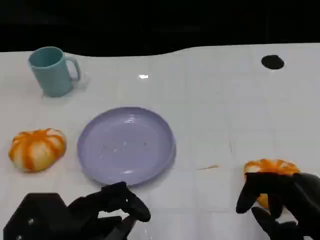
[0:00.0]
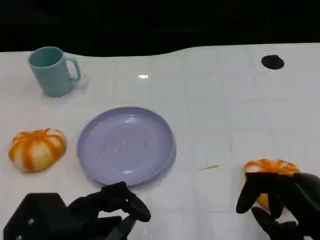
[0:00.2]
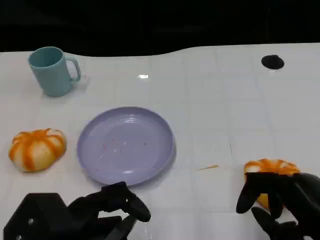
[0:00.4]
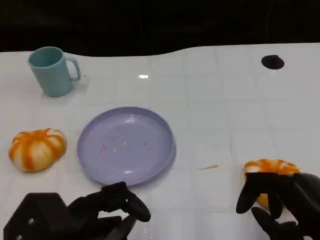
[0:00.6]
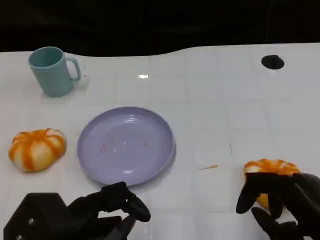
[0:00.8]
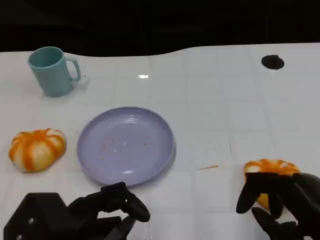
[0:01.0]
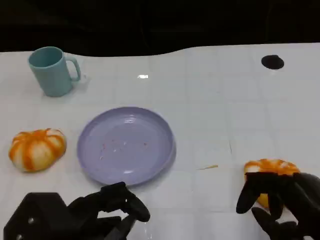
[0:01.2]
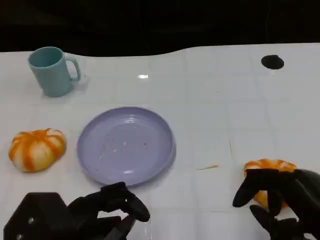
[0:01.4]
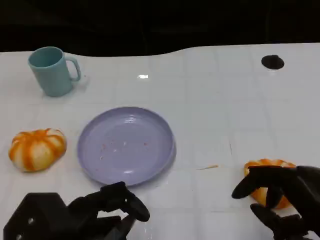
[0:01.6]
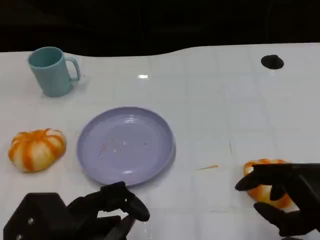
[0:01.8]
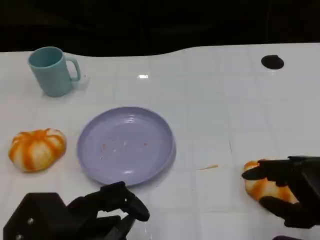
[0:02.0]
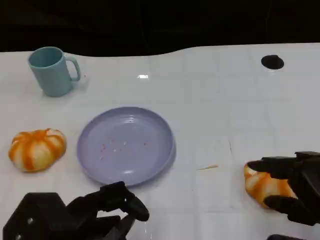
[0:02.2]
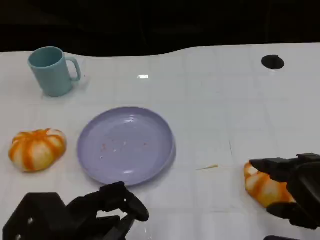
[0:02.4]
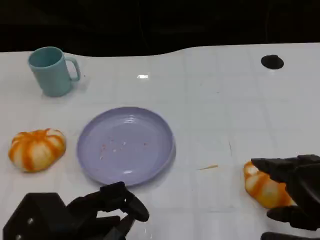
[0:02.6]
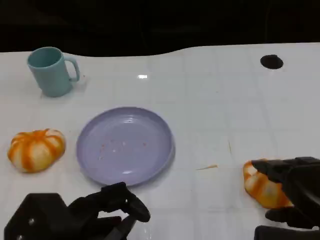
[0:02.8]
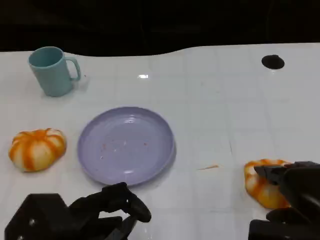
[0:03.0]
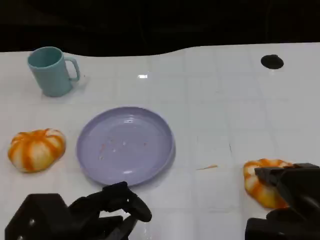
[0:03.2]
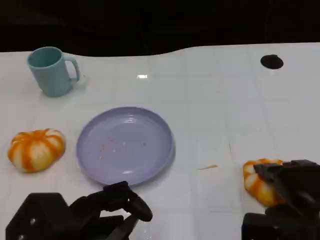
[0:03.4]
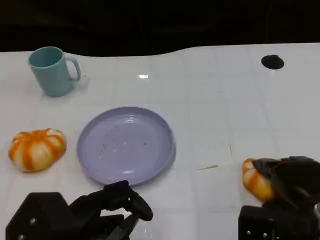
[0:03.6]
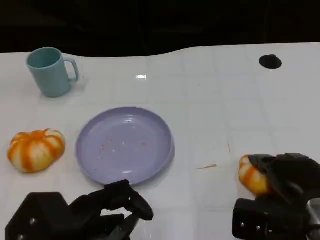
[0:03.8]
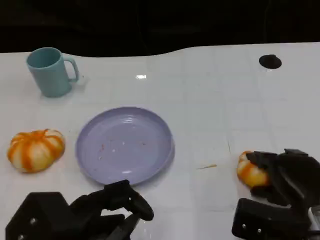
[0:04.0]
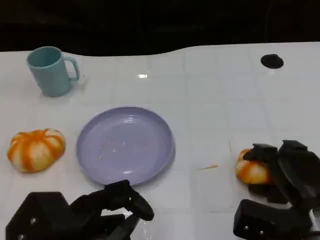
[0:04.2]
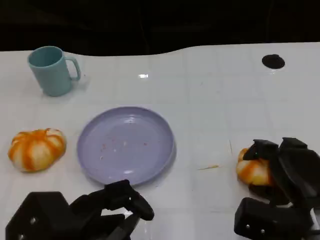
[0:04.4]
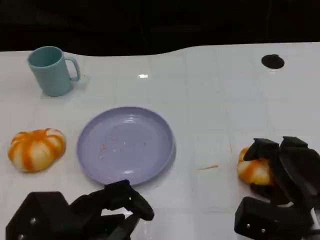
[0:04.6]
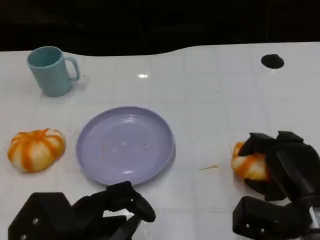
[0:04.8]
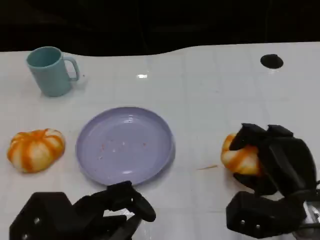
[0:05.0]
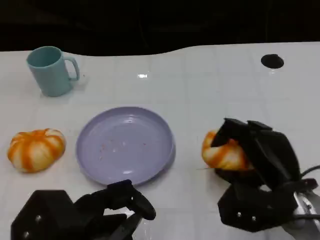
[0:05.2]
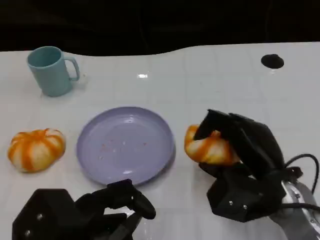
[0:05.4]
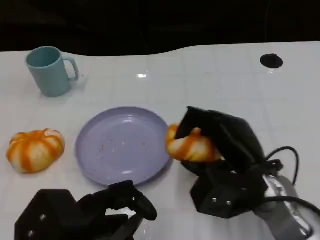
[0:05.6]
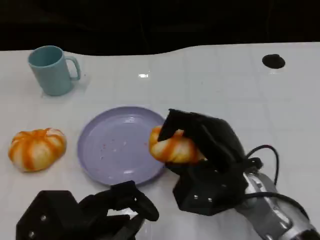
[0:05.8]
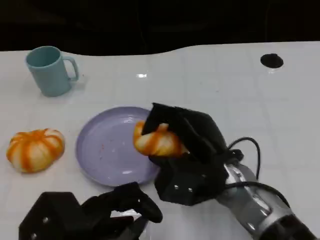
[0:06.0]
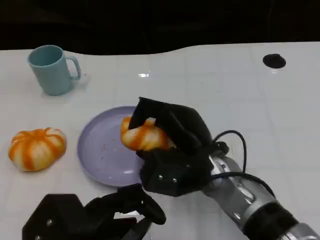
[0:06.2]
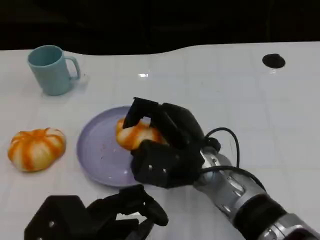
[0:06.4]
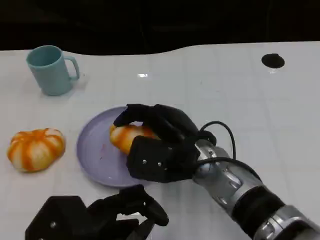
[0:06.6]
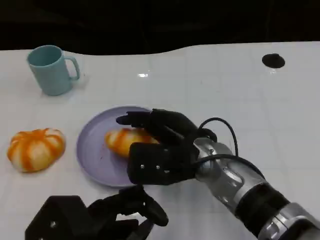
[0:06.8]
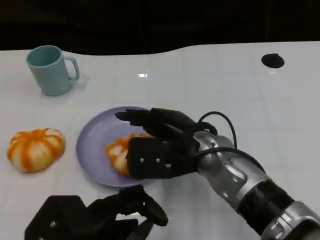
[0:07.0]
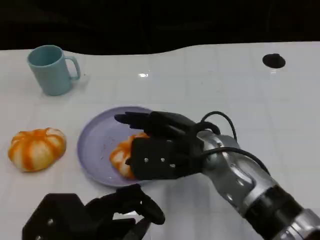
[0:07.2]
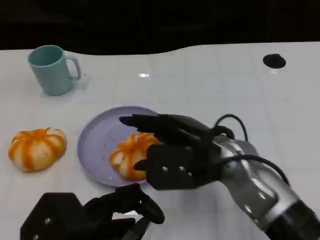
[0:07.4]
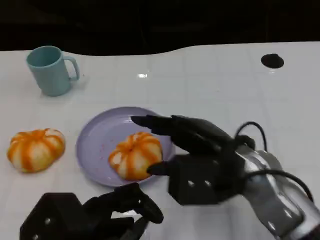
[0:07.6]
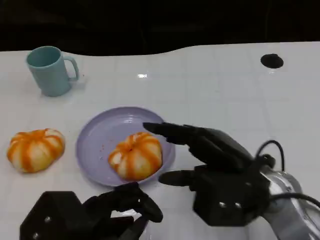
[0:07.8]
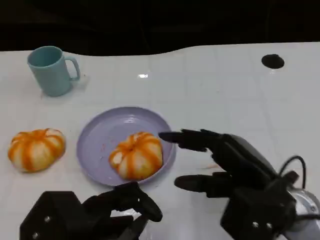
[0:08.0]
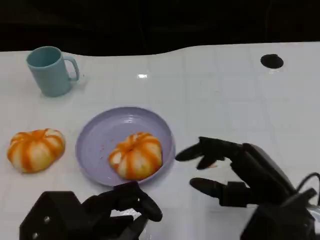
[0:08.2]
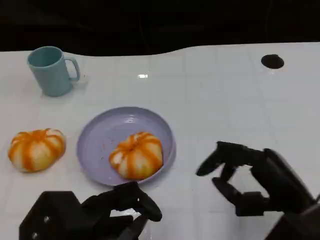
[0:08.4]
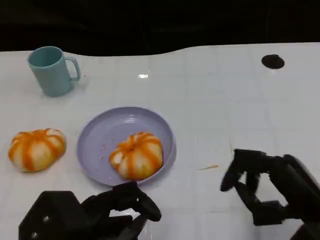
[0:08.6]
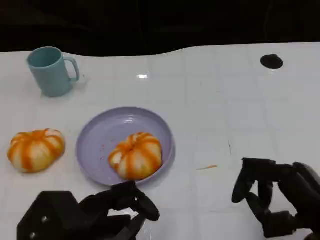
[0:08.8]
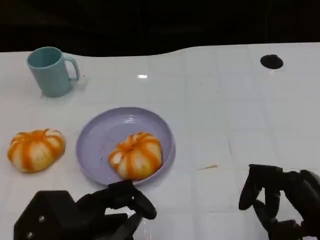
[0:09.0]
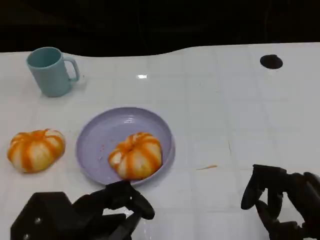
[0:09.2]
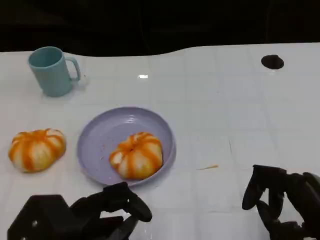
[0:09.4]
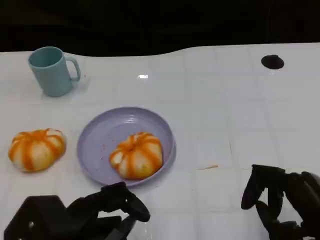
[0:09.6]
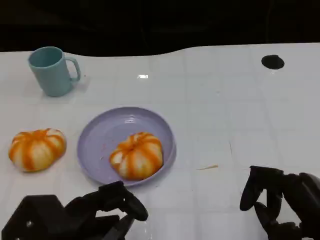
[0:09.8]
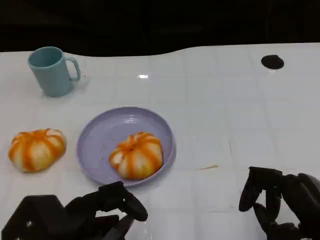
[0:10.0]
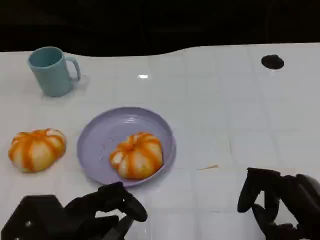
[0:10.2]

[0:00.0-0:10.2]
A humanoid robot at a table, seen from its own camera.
Task of the whole recording: Grasp the bread from the table and place it into the plate.
0.0 to 1.4 s: Both hands stay put.
3.0 to 4.4 s: The right hand goes some 5 cm downward.
4.4 to 5.8 s: The right hand is displaced to the left by approximately 10 cm.
5.8 to 7.2 s: The right hand shifts by about 5 cm.
7.2 to 8.8 s: The right hand shifts roughly 20 cm to the right and backward.
8.8 to 10.2 s: The hands make only small movements.

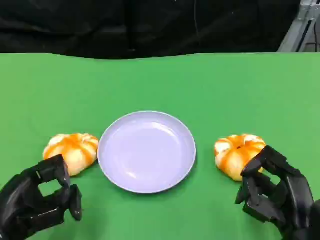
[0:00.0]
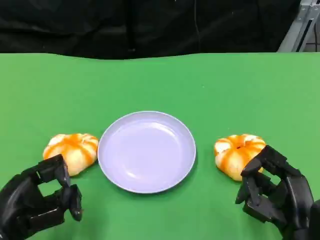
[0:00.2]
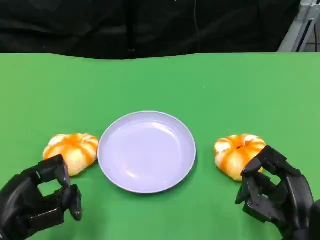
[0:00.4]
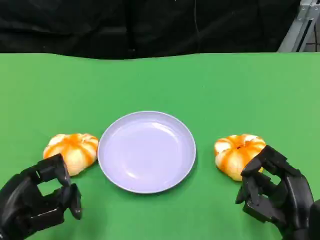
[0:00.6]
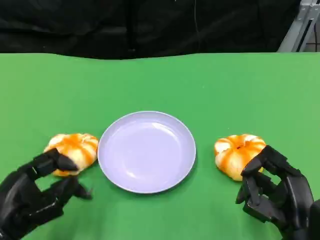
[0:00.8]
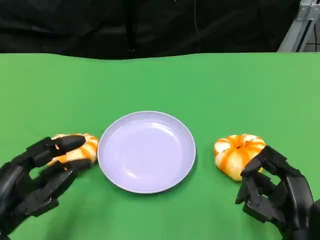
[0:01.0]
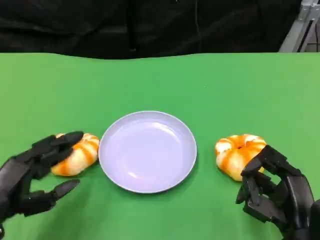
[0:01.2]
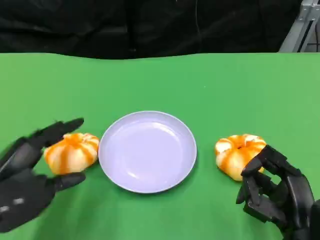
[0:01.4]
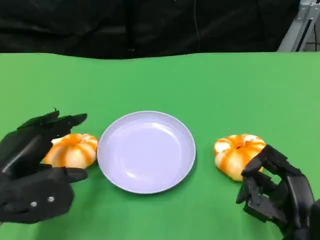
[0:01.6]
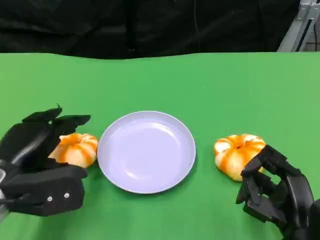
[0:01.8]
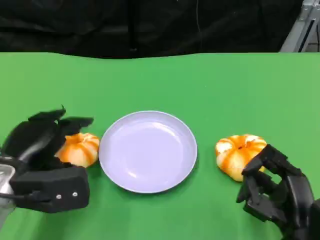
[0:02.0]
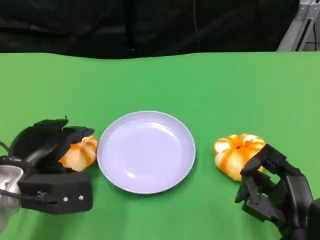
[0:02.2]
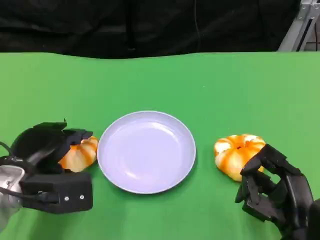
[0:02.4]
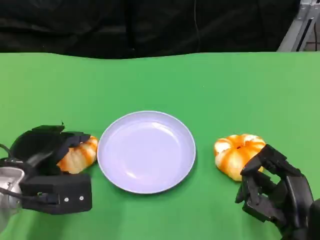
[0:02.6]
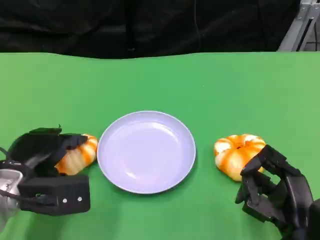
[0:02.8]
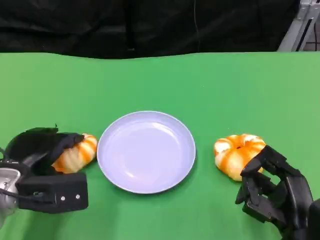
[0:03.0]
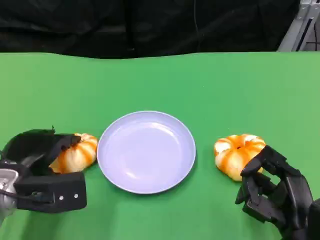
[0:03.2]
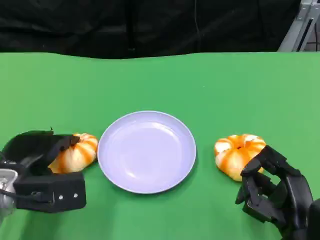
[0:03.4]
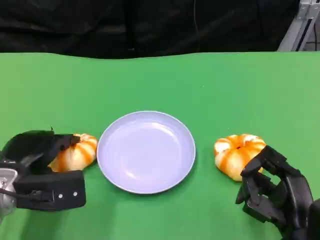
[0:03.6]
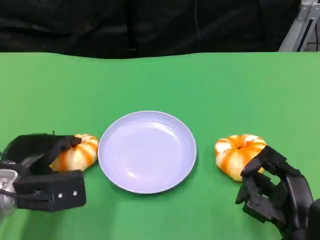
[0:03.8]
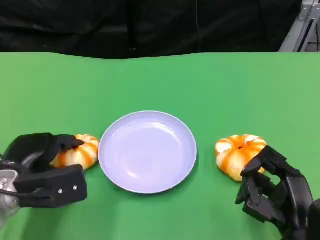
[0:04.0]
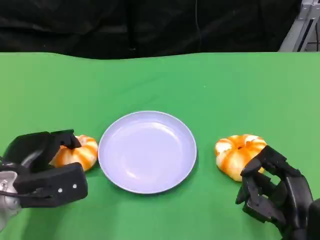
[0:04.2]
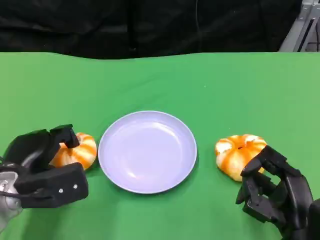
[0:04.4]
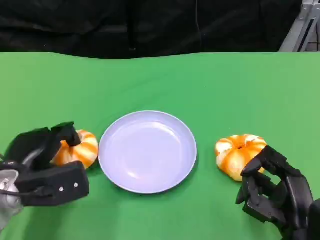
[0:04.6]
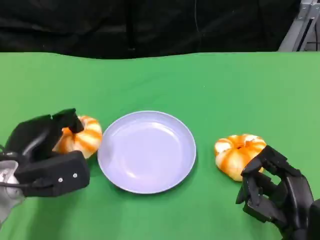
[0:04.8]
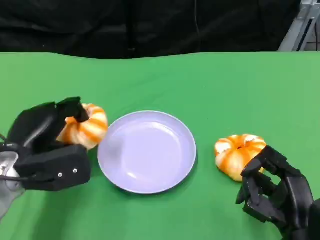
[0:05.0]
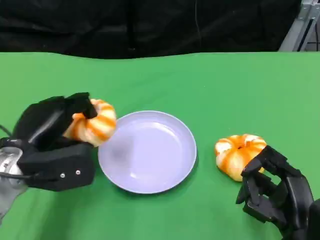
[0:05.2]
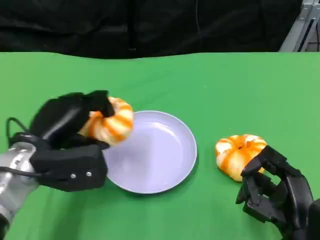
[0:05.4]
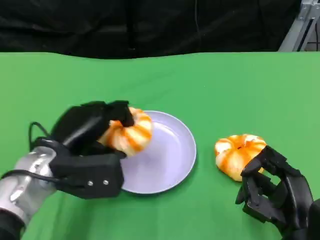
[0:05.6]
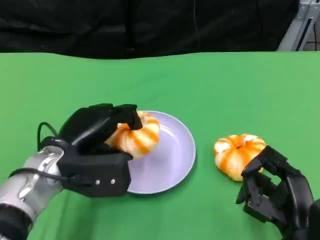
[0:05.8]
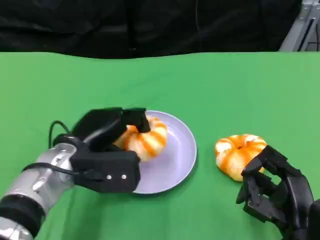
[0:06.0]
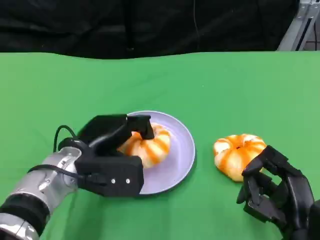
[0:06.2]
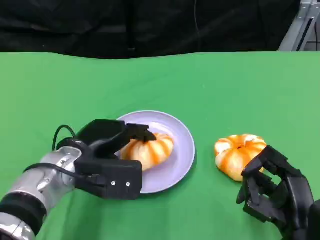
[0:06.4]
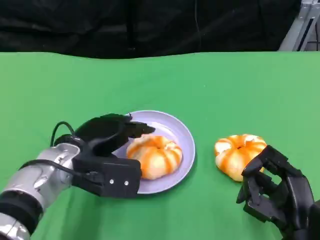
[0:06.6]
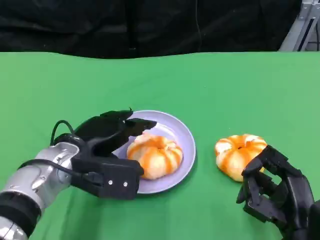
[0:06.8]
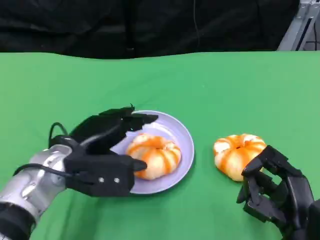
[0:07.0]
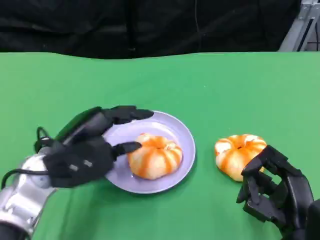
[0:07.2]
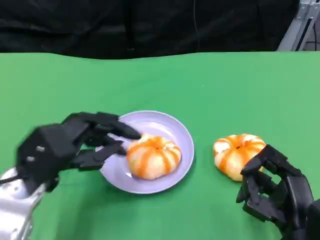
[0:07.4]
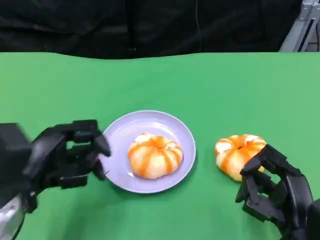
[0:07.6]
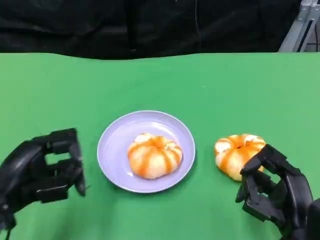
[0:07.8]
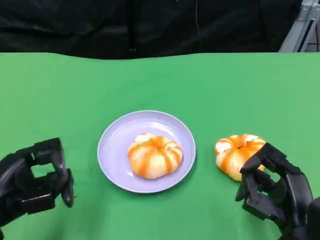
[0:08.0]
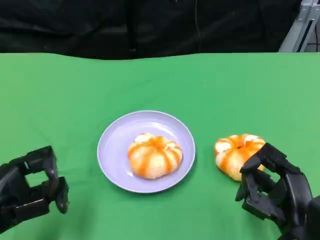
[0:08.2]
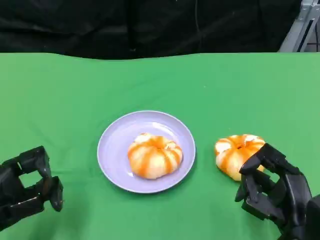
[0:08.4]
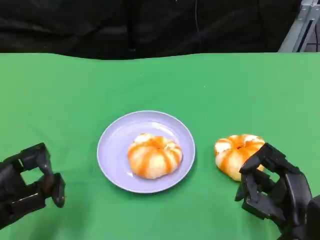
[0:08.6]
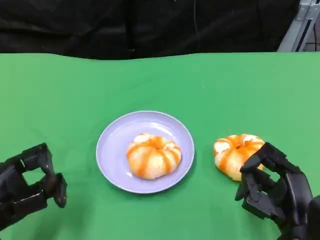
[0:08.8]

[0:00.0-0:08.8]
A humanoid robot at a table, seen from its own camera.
Task of the whole recording: Grasp the bread from the table and place it into the plate.
0.0 to 1.4 s: The left hand shifts by approximately 5 cm.
1.4 to 3.0 s: The left hand goes approximately 10 cm forward and downward.
3.0 to 4.4 s: The hands move only a little.
4.4 to 5.8 s: The left hand moves to the right, some 5 cm.
5.8 to 7.4 s: The left hand moves approximately 5 cm.
7.4 to 8.8 s: The left hand goes approximately 10 cm to the left and backward.

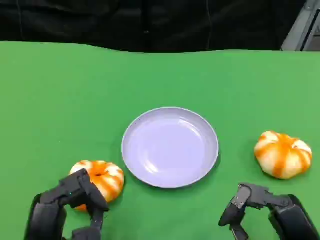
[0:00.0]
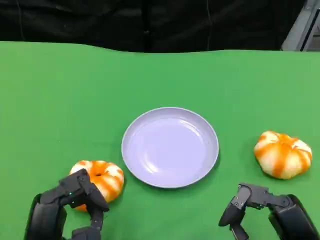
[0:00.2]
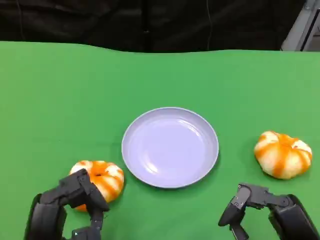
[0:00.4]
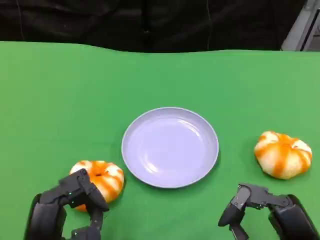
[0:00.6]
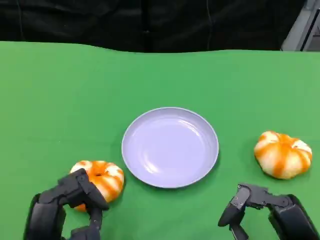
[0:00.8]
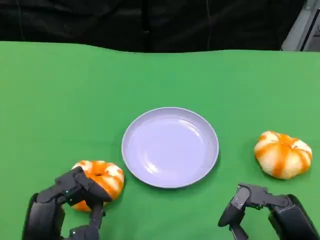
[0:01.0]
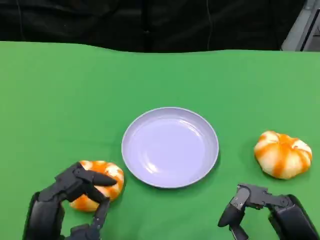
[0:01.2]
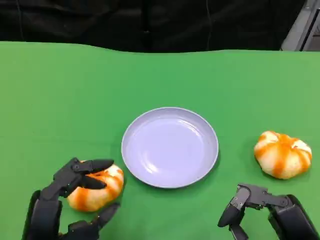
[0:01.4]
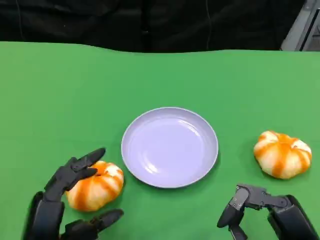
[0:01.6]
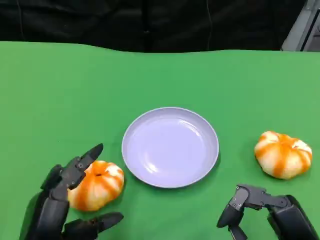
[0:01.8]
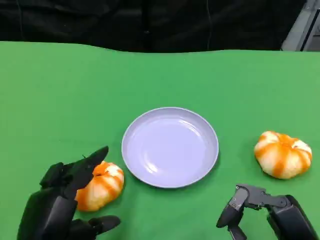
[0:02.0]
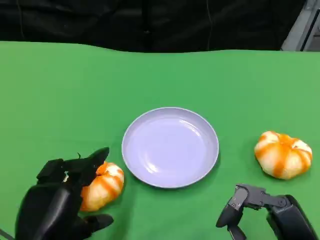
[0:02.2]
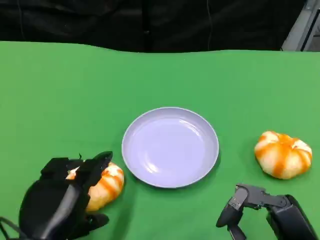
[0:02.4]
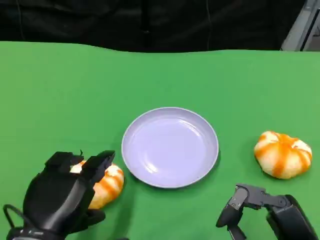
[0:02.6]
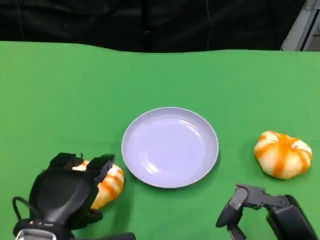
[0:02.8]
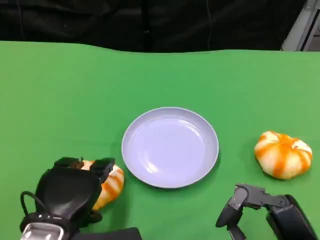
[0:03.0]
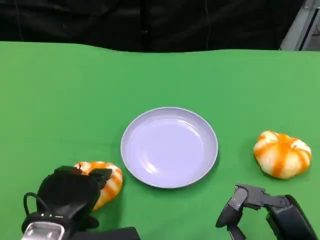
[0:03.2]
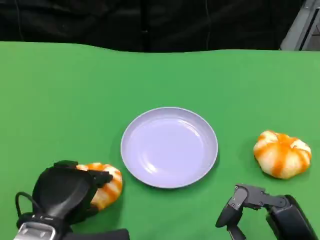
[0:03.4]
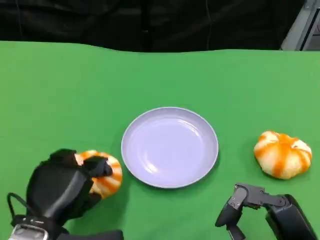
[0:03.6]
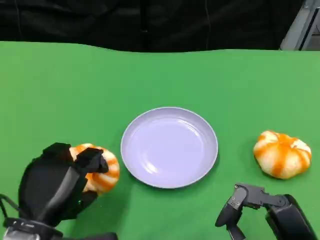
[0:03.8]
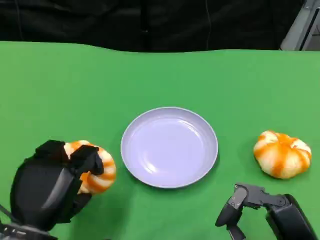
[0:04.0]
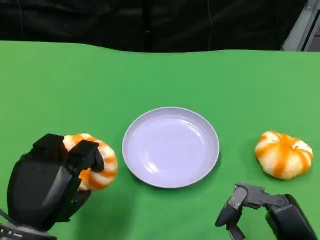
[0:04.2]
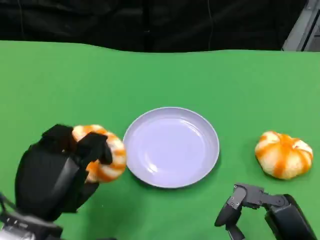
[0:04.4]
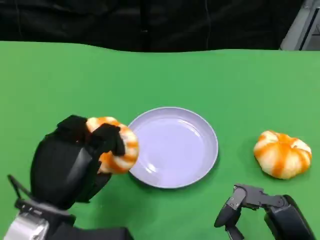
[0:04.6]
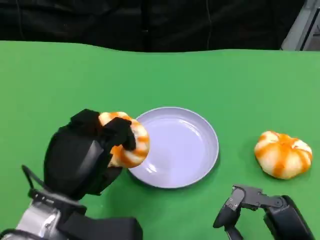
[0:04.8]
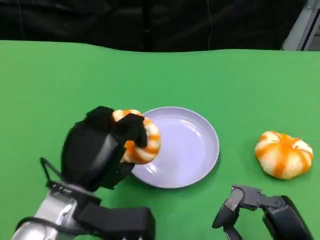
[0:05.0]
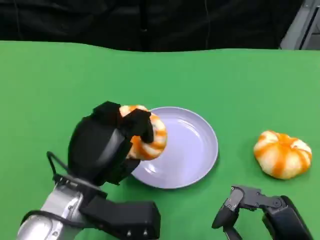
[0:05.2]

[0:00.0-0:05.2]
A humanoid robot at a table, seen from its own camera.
Task of the whole recording: Grasp the bread from the table and place it into the plate.
1.8 to 3.4 s: The left hand heads forward, covering about 5 cm.
3.4 to 5.2 s: The left hand ends up some 10 cm from where it was.
